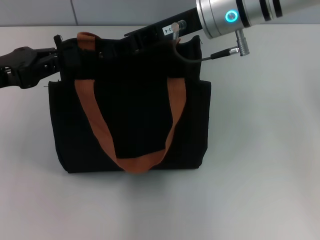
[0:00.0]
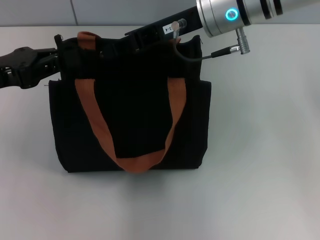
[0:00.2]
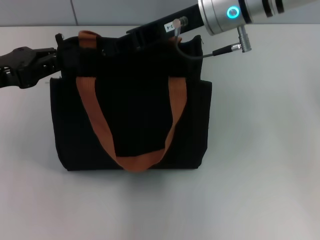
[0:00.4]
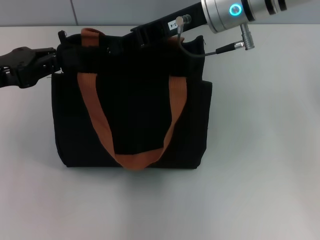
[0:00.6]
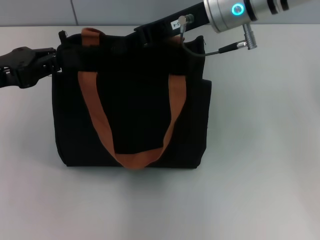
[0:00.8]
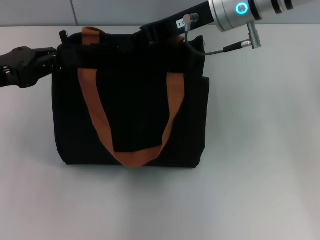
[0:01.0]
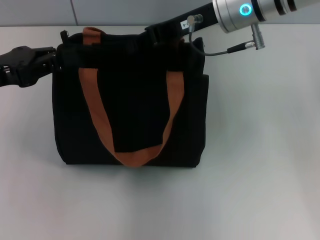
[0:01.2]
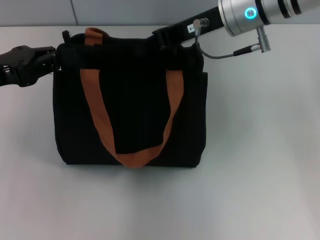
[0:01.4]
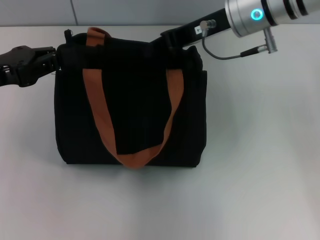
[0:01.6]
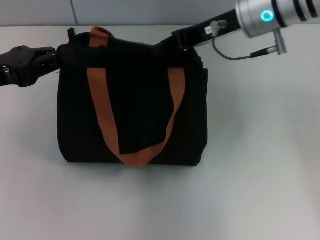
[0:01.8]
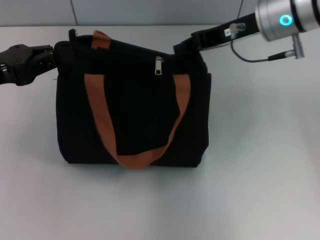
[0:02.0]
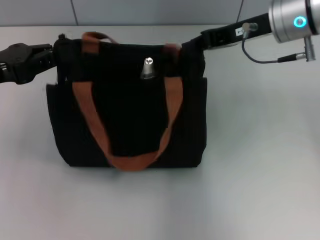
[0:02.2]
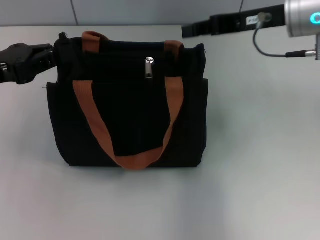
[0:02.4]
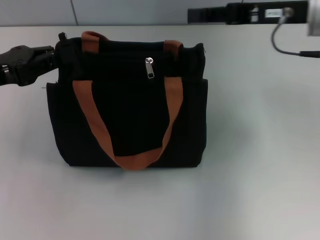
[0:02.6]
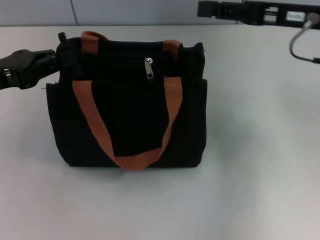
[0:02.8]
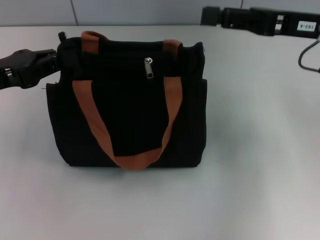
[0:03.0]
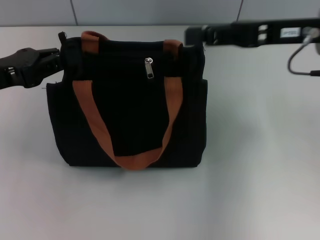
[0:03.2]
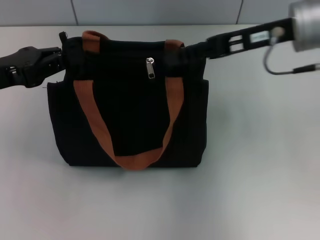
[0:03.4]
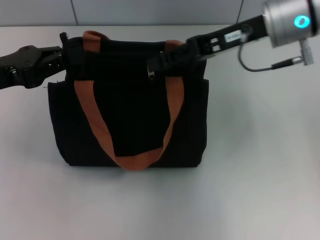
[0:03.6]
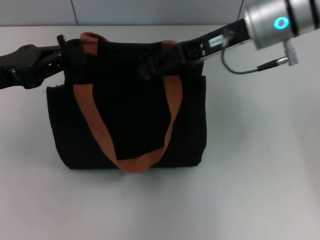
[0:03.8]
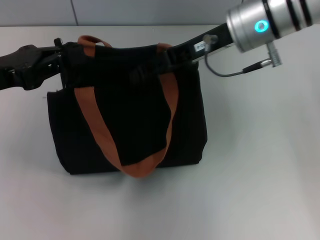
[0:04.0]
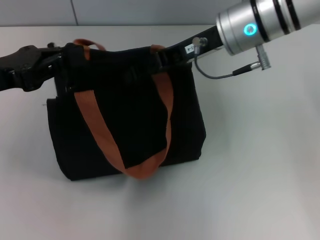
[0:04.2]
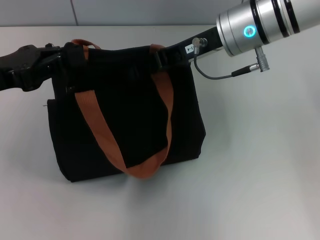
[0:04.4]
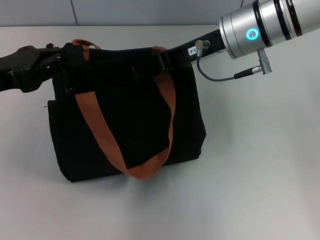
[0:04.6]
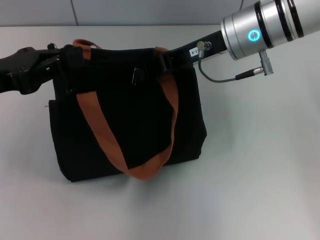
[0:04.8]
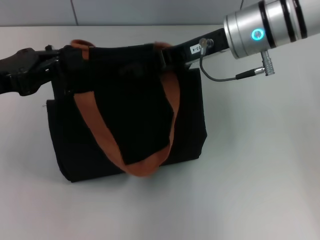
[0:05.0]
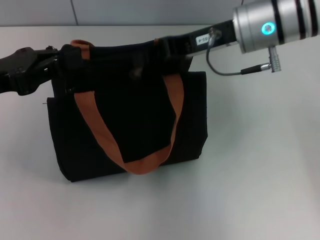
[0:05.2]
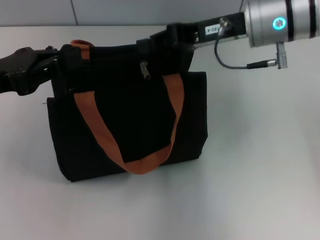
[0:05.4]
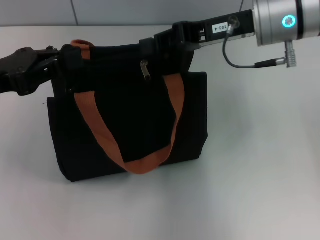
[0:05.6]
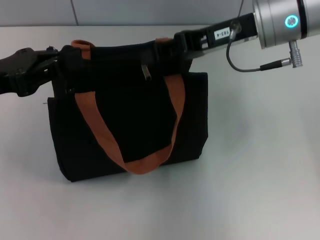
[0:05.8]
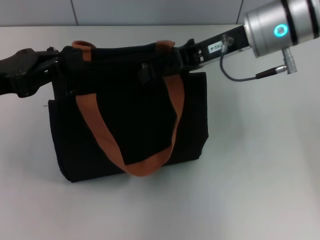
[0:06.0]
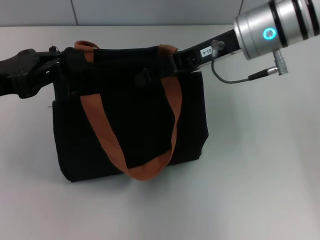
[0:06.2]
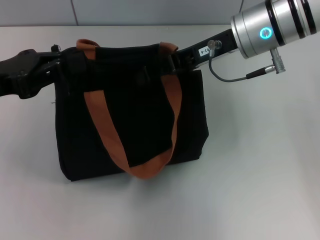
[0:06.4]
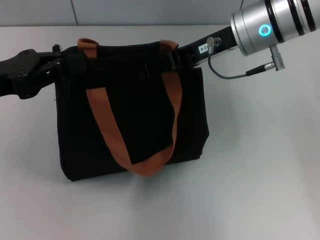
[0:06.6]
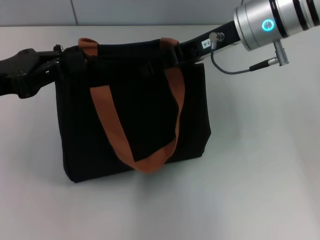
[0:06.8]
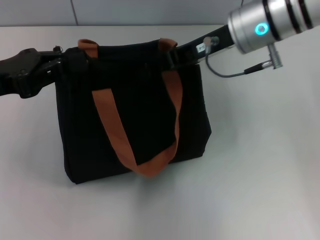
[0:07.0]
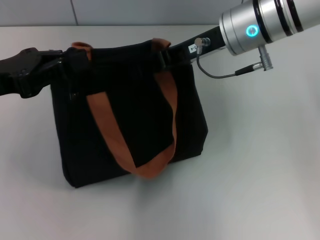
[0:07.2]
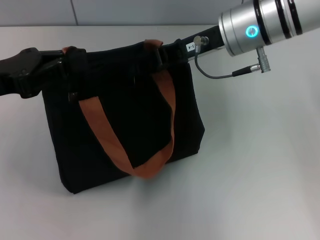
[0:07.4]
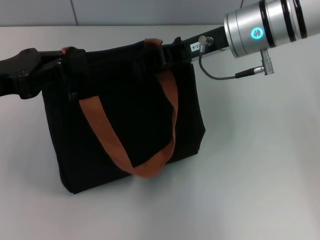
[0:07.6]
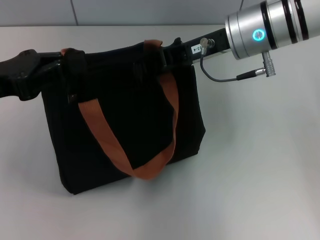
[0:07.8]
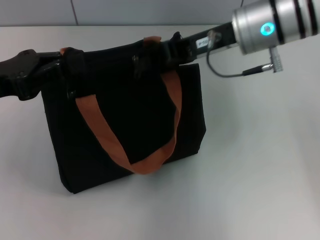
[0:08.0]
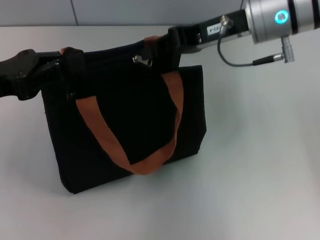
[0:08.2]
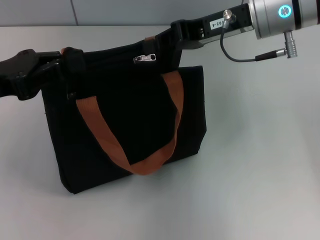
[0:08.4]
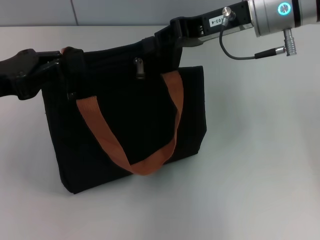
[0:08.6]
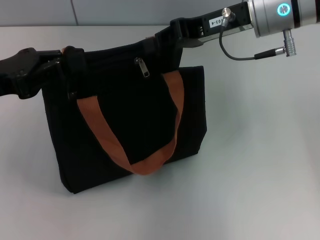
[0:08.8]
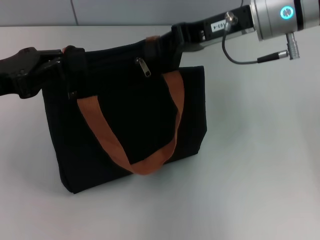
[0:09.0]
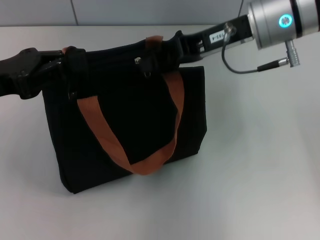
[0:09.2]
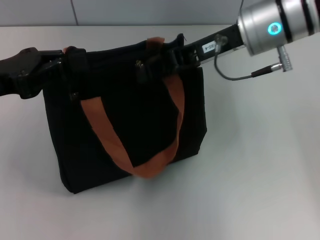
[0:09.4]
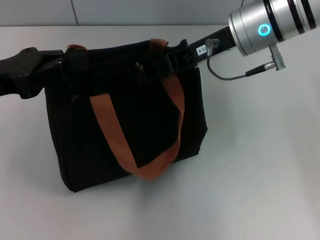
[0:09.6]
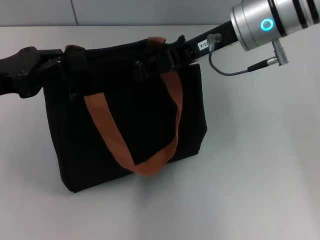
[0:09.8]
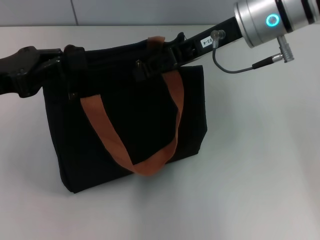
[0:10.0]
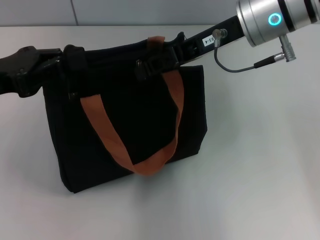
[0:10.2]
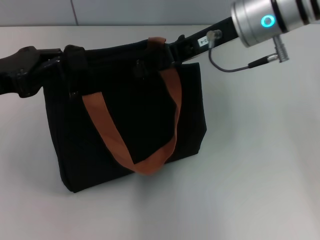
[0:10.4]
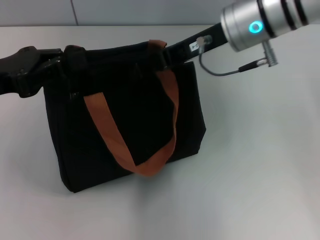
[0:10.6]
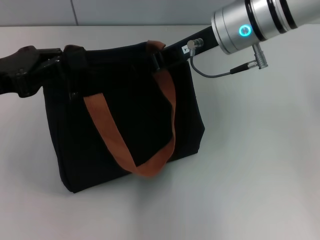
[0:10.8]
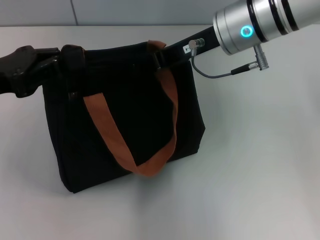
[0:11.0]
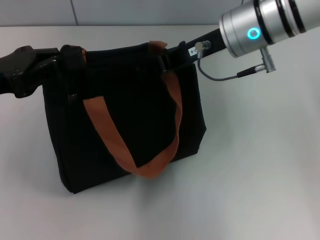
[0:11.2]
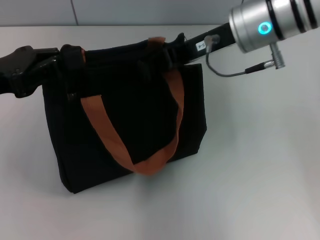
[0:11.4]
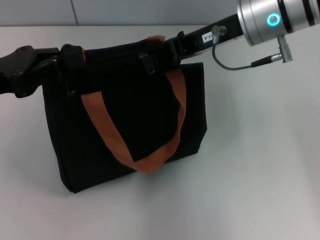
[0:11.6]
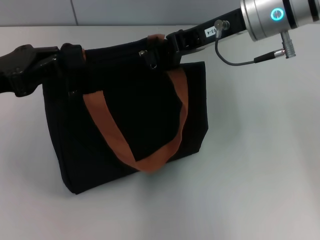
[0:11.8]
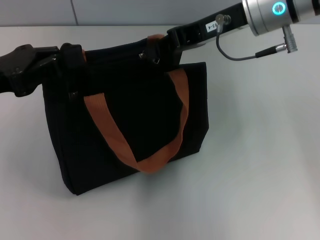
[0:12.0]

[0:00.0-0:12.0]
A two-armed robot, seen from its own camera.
0:00.0 to 0:01.6: The grippers stay close to where they were, moving slightly.
0:01.6 to 0:03.0: The right gripper goes some 10 cm to the right and backward.
0:03.0 to 0:04.4: The right gripper travels to the left by about 10 cm.
0:04.4 to 0:09.0: The grippers make only small movements.
0:09.0 to 0:10.4: The right gripper opens up.
0:10.4 to 0:12.0: The right gripper closes up.

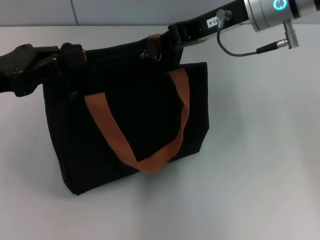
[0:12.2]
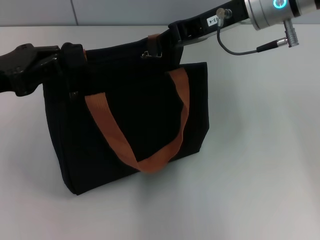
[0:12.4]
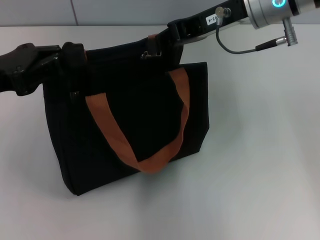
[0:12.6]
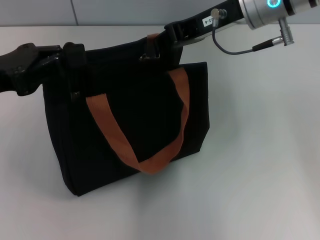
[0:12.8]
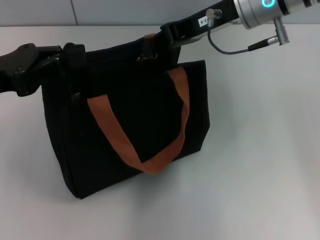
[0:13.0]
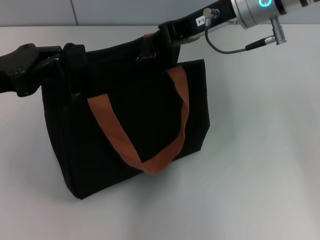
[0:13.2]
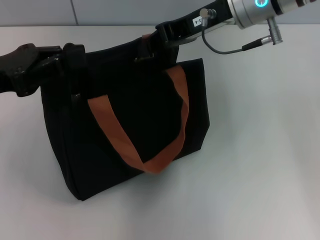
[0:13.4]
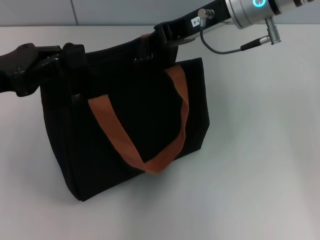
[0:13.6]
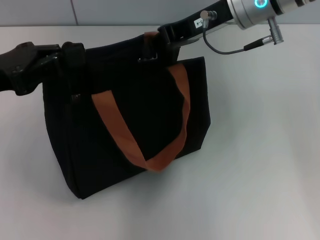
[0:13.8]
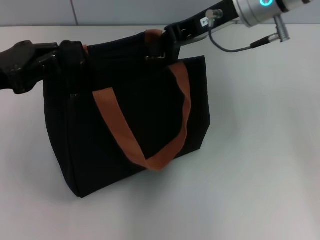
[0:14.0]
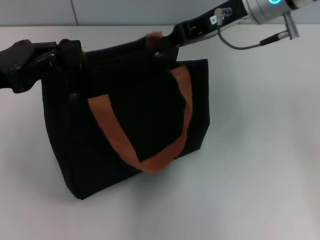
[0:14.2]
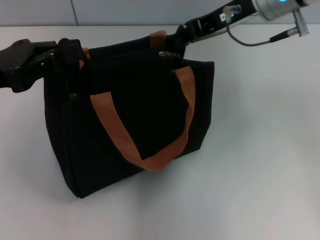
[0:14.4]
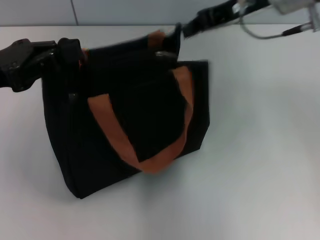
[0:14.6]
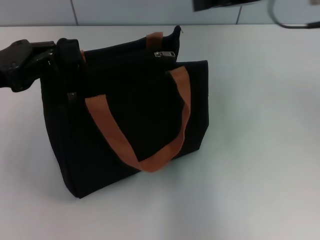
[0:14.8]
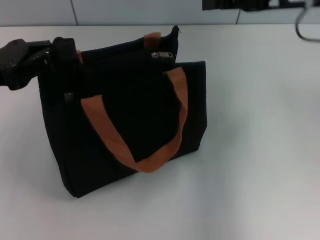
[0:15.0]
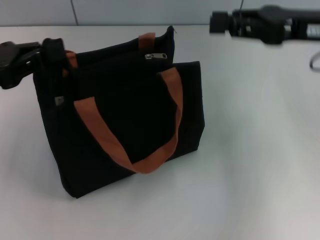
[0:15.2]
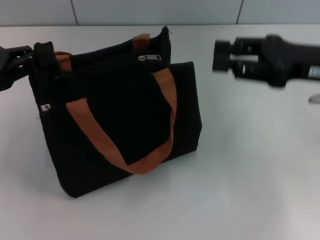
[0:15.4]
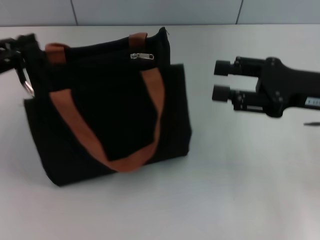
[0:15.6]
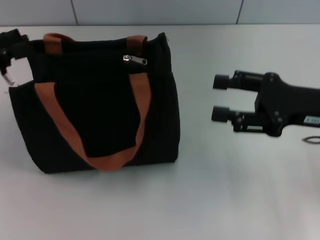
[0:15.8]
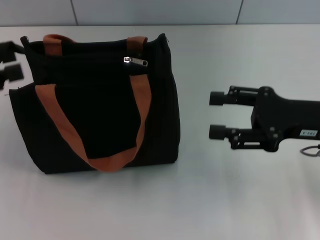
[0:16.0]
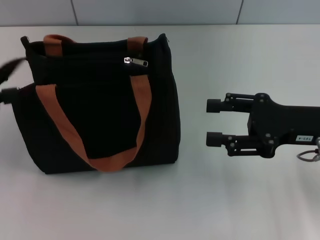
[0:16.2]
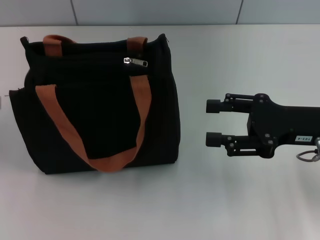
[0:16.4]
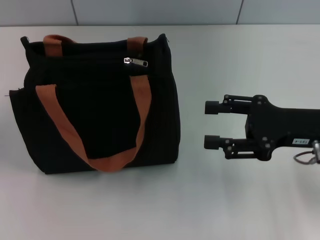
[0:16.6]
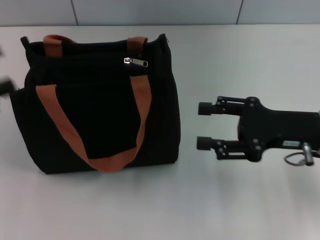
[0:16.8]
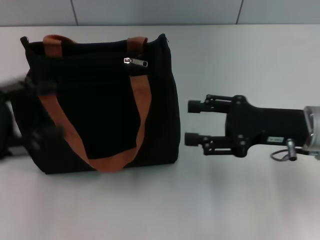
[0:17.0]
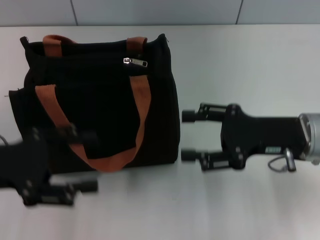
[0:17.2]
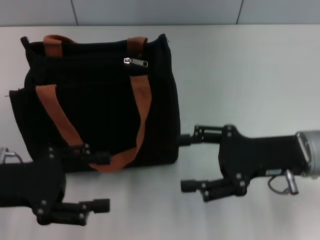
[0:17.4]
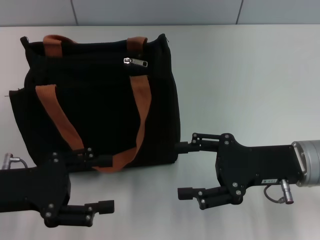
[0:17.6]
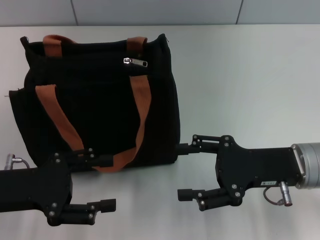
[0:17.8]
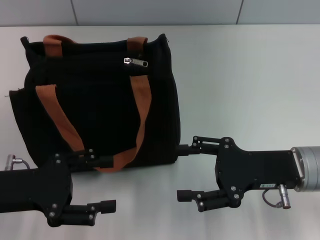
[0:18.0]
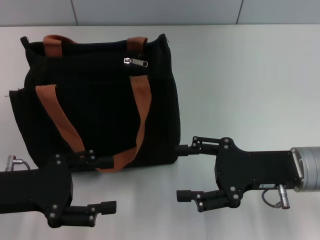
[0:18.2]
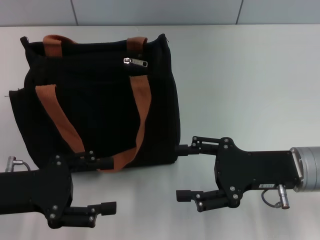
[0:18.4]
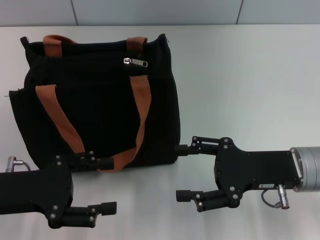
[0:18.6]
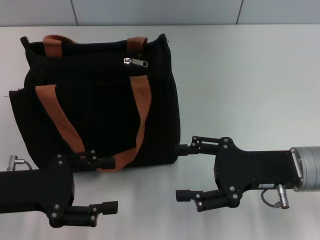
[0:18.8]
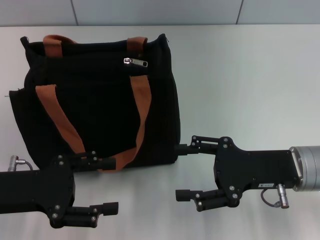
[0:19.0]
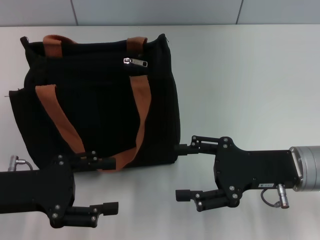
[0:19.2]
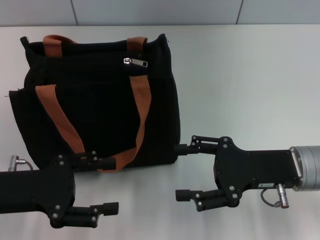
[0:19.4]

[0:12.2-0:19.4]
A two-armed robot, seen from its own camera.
Step, 0:12.2 to 0:14.2: Pull up the zipper with your right hand.
Step, 0:14.6 to 0:16.4: Grab the zipper with your left hand.
0:12.2 to 0:13.6: The grippers make only small movements.
0:13.6 to 0:15.0: The right gripper shifts some 10 cm to the right.
0:15.0 to 0:16.6: The right gripper goes about 15 cm downward and backward, and opens its fingers. Meanwhile the left gripper goes some 10 cm to the left, and opens its fingers.
0:16.6 to 0:18.0: The left gripper shifts some 15 cm to the right and downward, while the right gripper shifts by about 5 cm.
0:18.0 to 0:19.4: Both grippers stay put.
